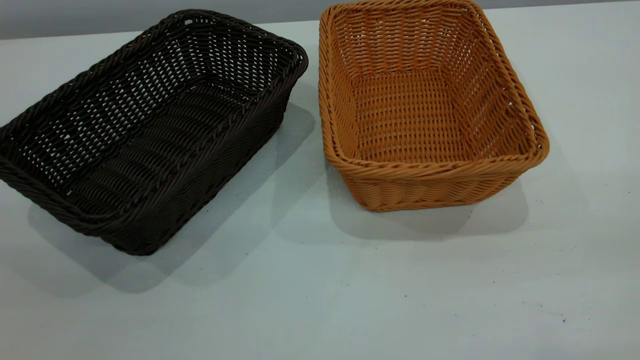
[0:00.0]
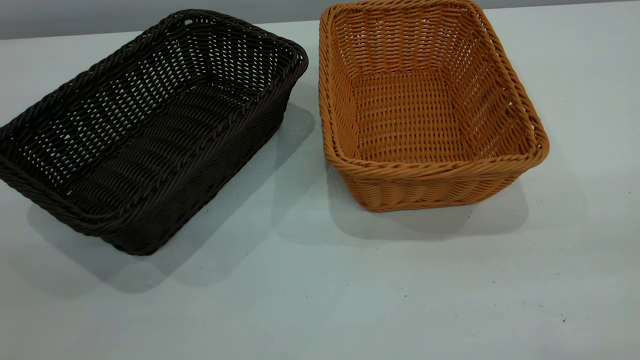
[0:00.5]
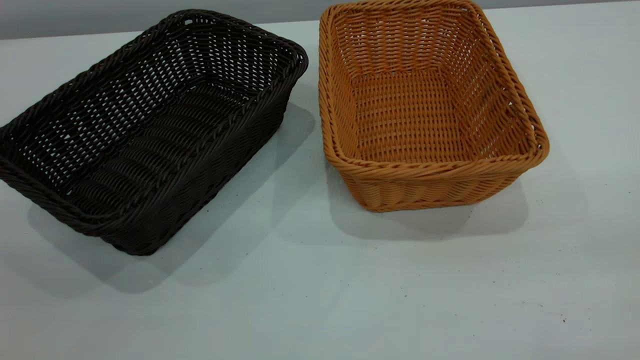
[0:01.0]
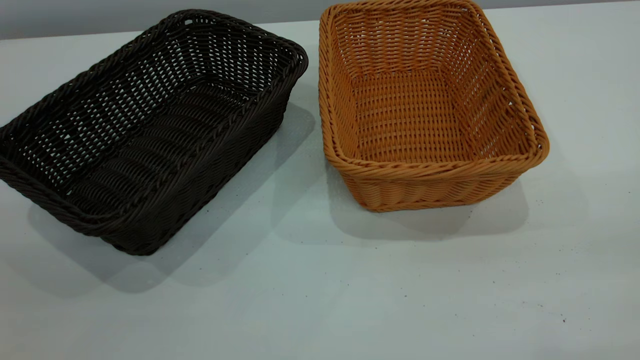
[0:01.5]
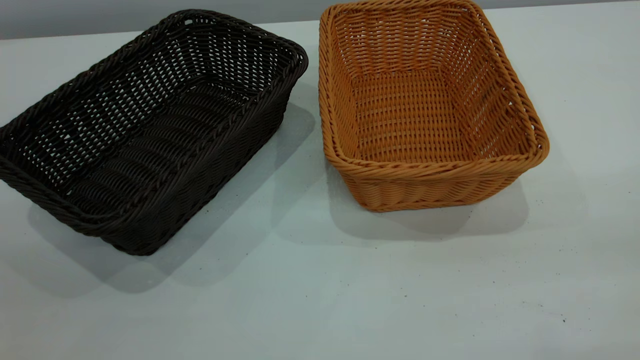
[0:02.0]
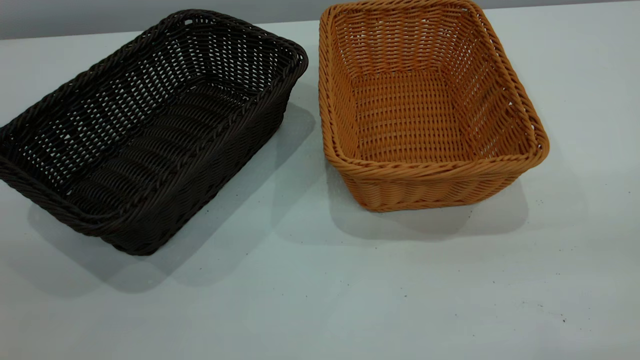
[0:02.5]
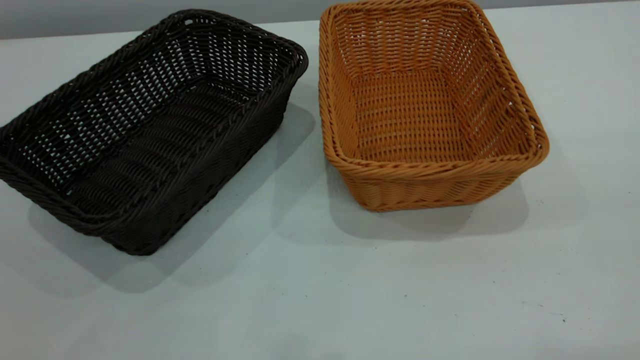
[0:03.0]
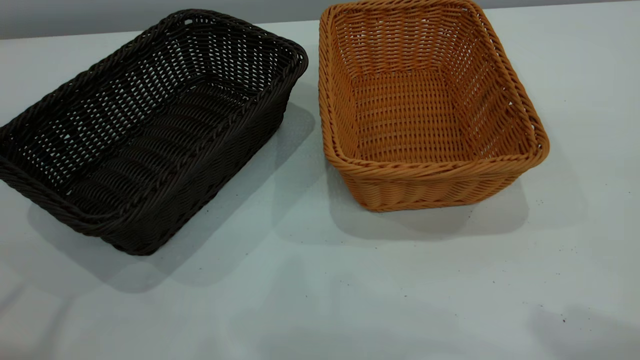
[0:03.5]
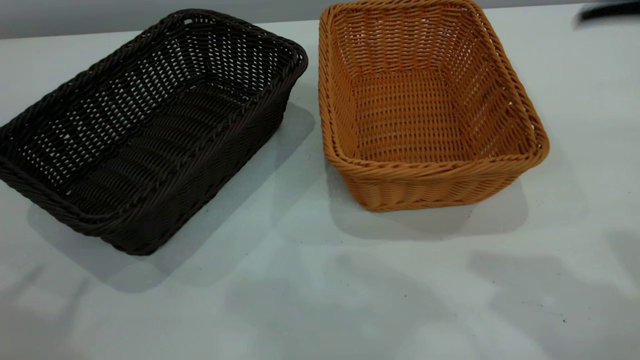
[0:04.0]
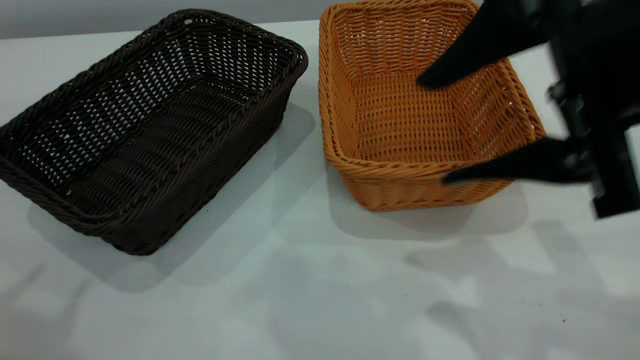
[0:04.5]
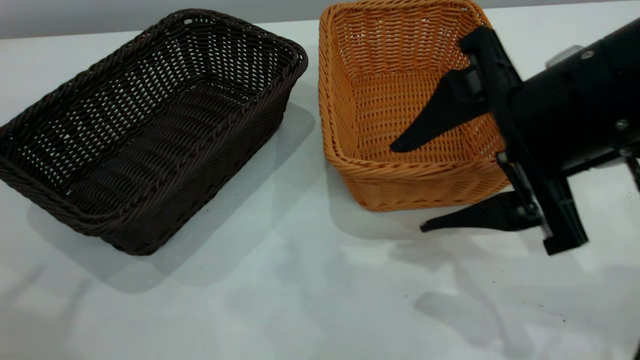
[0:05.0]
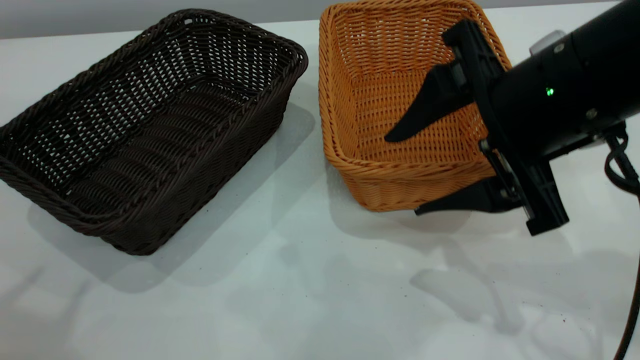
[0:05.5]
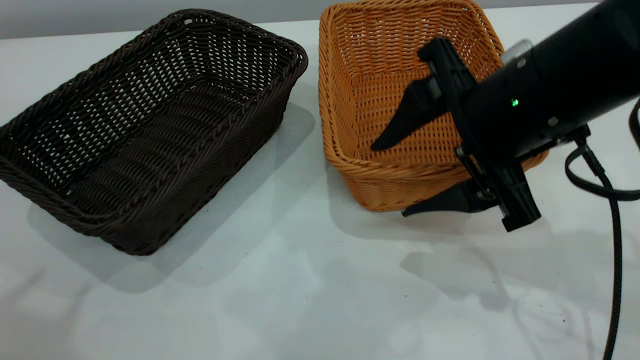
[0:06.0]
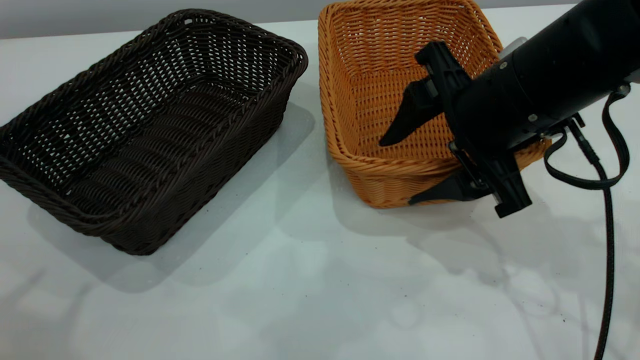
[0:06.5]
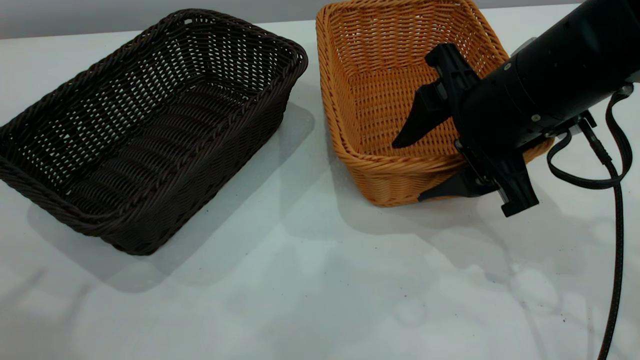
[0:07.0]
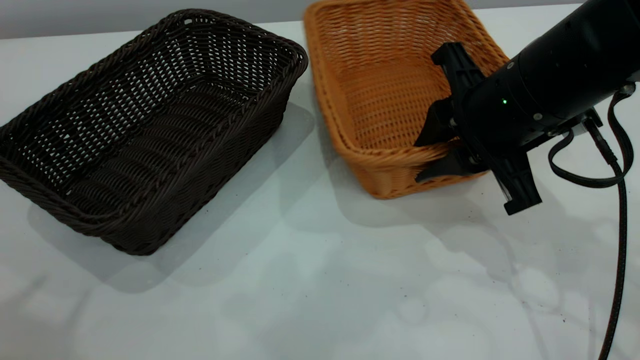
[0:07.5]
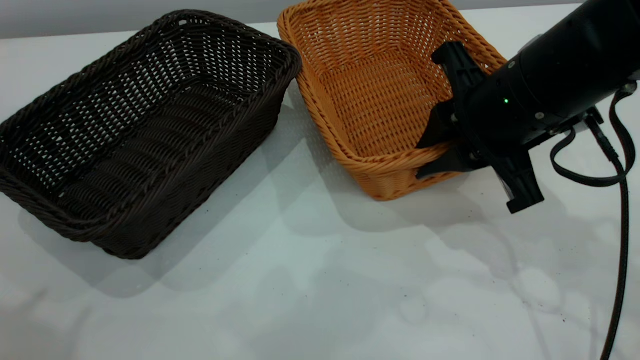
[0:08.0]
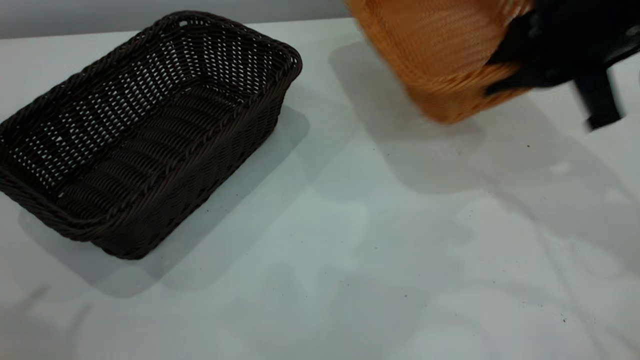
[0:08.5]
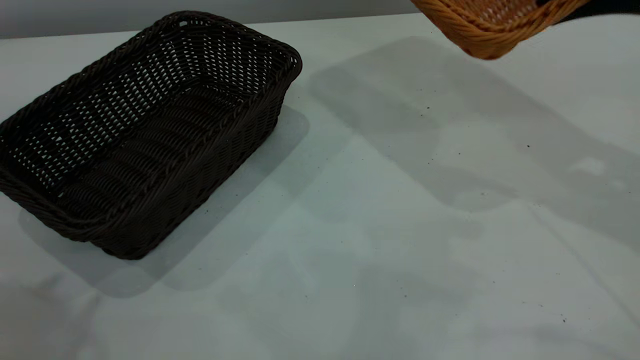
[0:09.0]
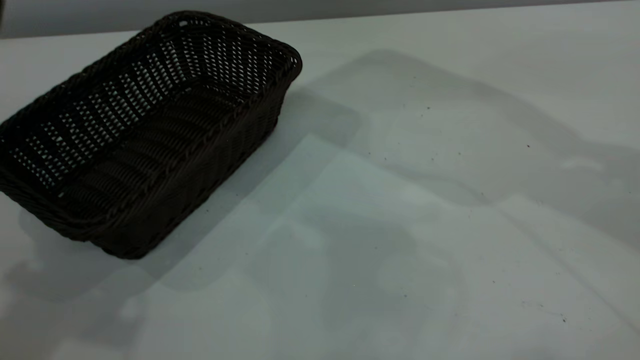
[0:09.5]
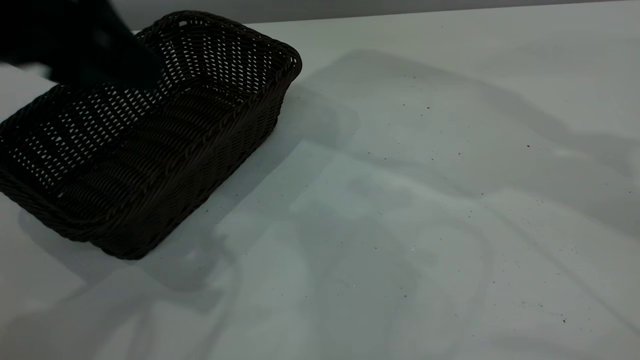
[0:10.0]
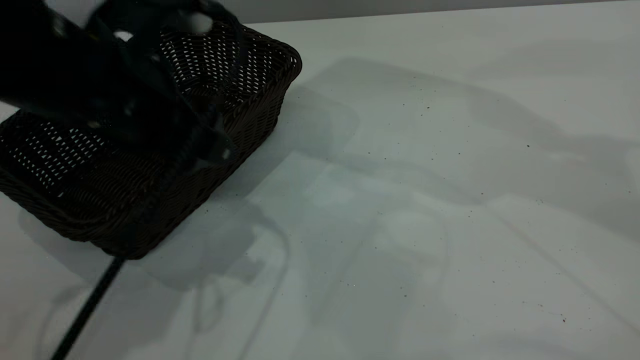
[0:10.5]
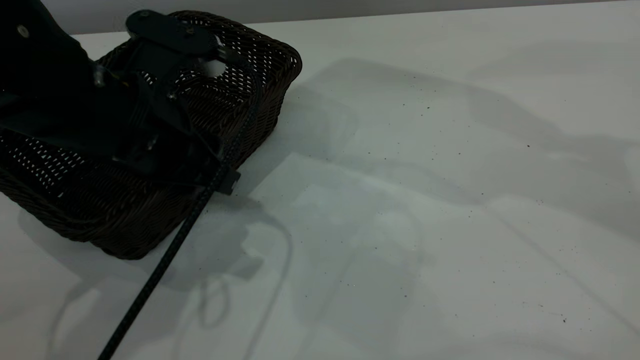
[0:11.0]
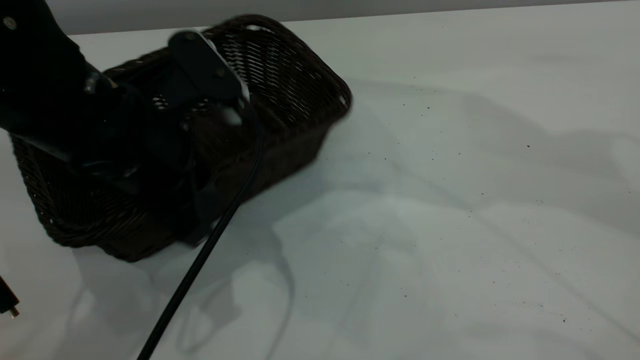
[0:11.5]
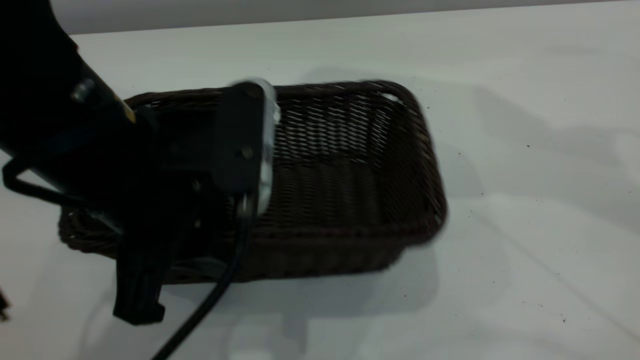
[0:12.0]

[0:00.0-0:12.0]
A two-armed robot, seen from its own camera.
Task of the whole recording: the left gripper grasp the black basket and place it in the center of the table, the right gripper grasp the brown basket and place it inside the black one.
Step, 0:00.0 to 0:08.0: Pick up the light basket with the right gripper.
0:00.0 to 0:02.0: Neither gripper changes place.
0:02.0 to 0:04.0: The right gripper is displaced forward and to the left by some 20 cm, and opens up.
0:04.0 to 0:06.0: The right gripper heads downward, forward and to the left, covering some 20 cm.
0:06.0 to 0:08.0: The right gripper closes up.
0:08.0 to 0:10.0: The right gripper is displaced upward and to the right by some 20 cm, while the left gripper moves forward, downward and to the right, some 15 cm.
0:10.0 to 0:12.0: The left gripper travels downward and to the right by approximately 10 cm, and closes.

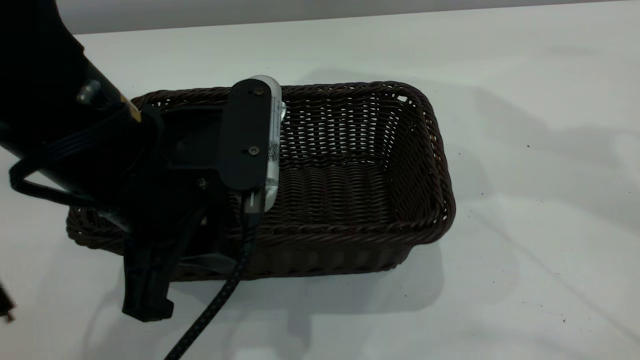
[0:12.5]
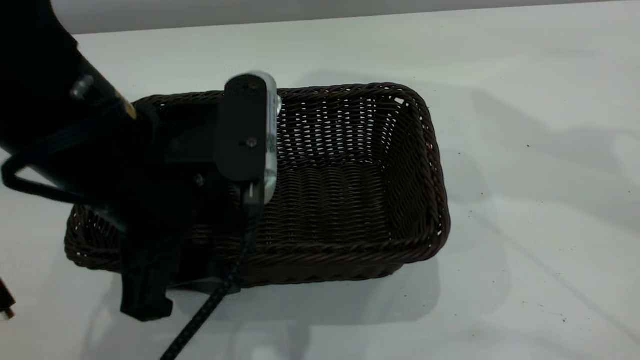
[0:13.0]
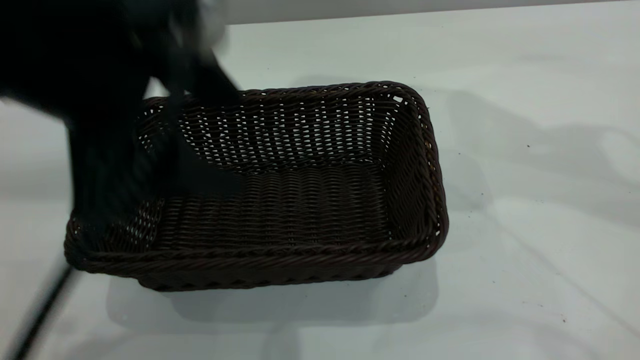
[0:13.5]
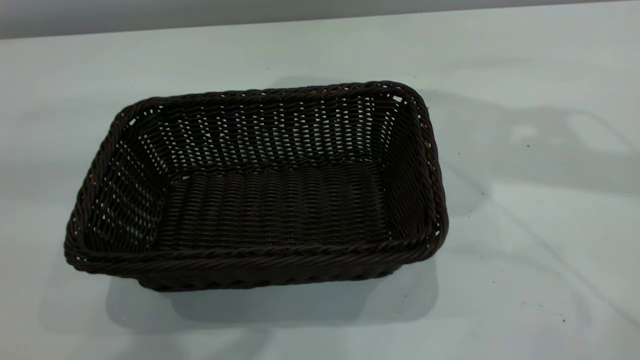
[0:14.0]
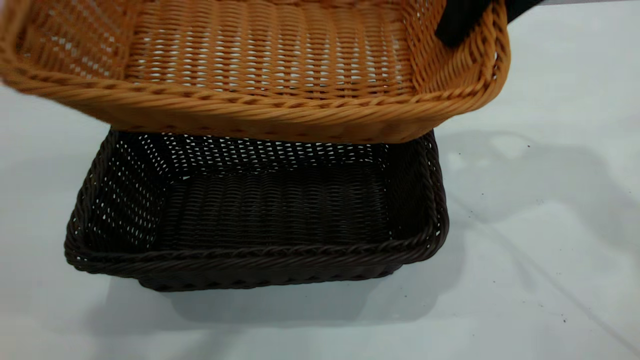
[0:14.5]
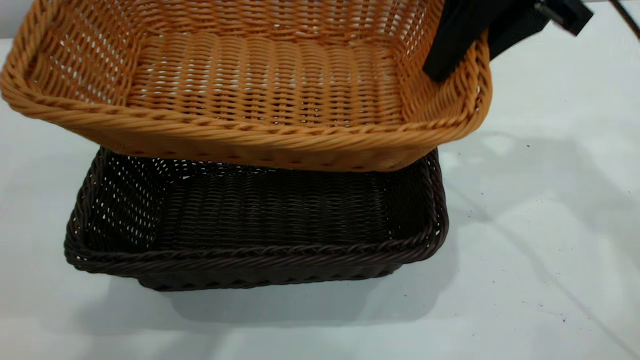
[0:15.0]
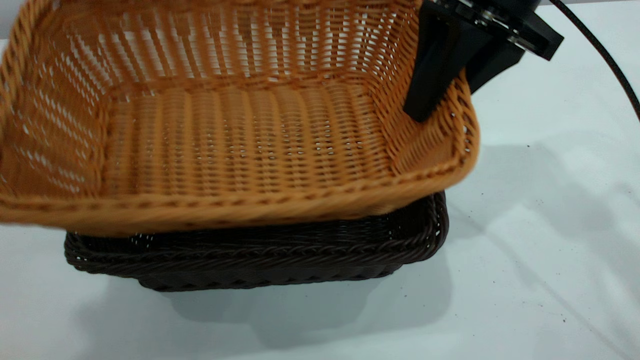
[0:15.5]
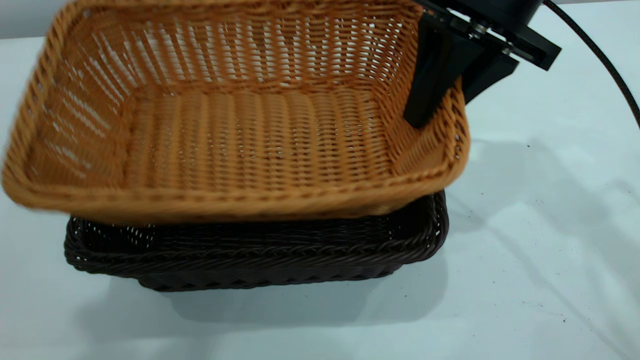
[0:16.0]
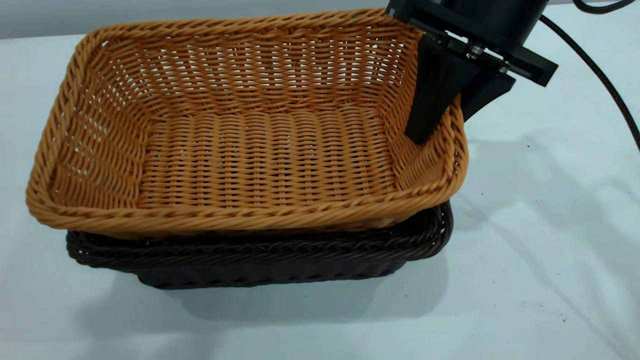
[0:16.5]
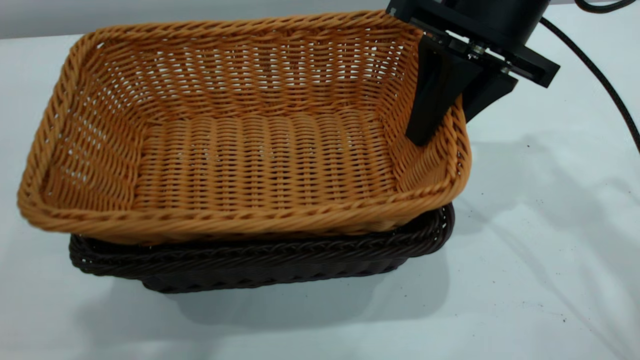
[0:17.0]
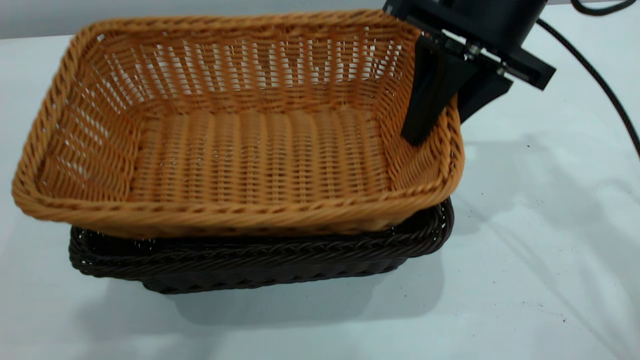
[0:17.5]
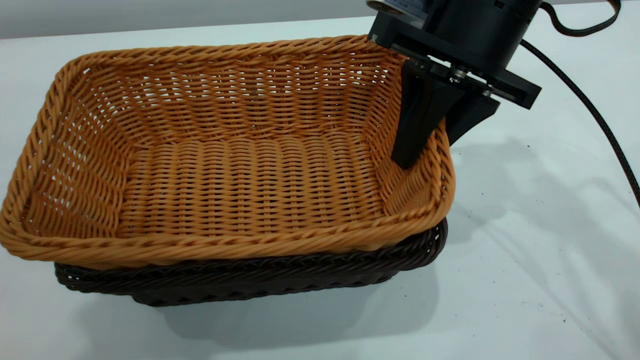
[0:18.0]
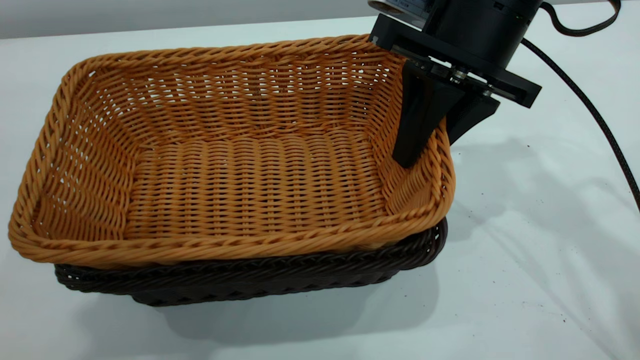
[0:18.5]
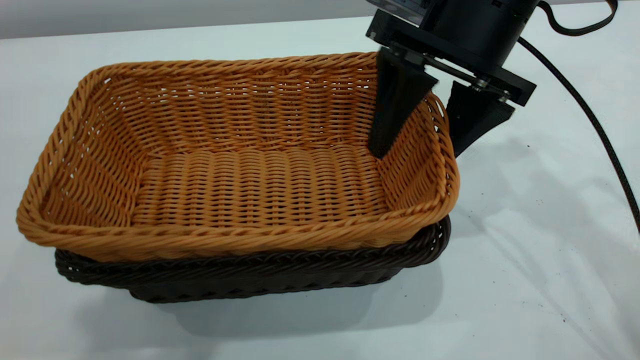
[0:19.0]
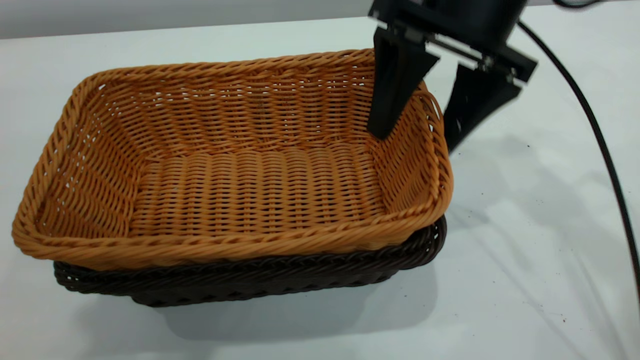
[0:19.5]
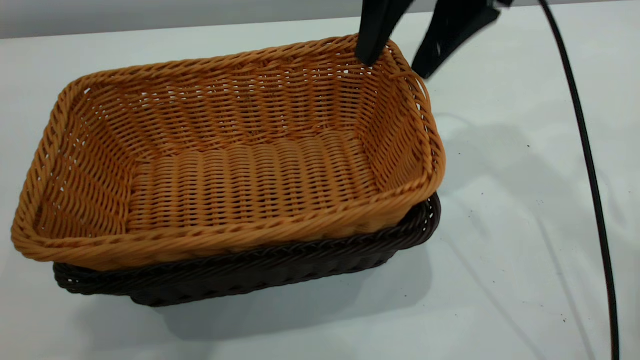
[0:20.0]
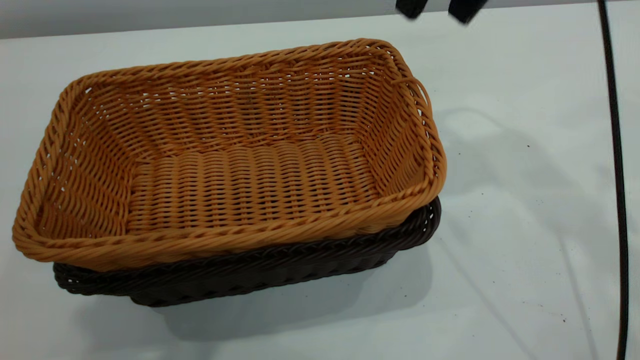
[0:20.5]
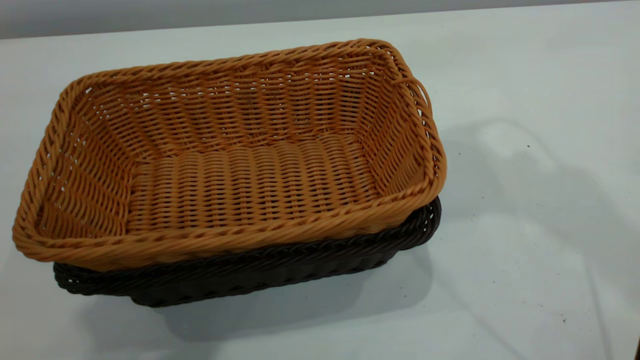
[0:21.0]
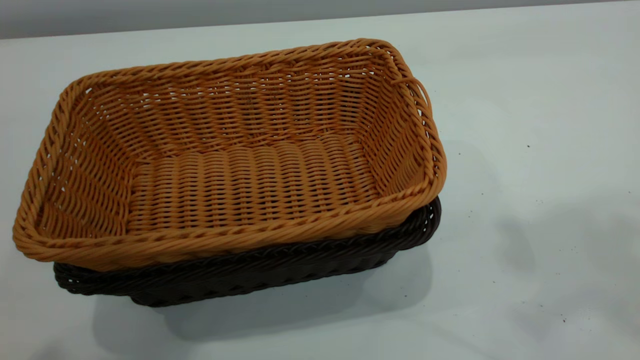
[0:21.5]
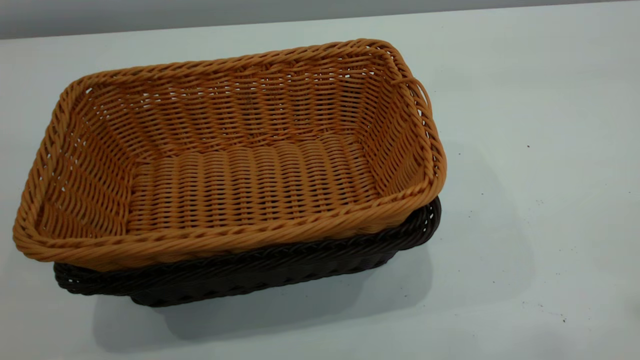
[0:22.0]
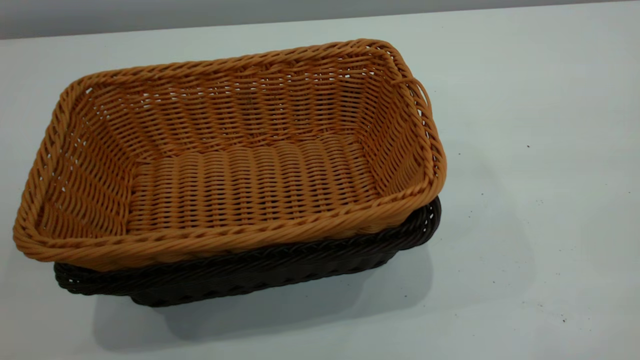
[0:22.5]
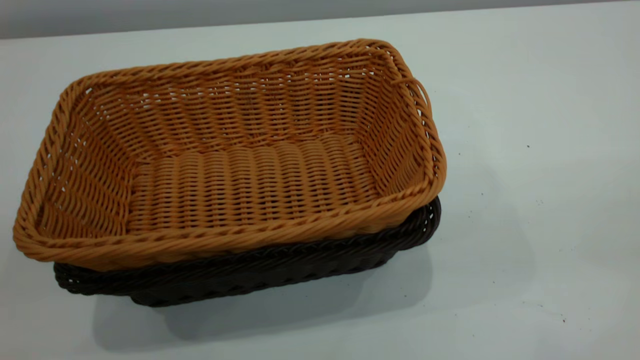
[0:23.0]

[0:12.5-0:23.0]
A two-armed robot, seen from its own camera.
Task of the whole recording: the left gripper grasp the black basket and place it in the center of the table, the right gripper grasp the brown basket and place it inside the black one.
Step, 0:14.0 to 0:20.0: Place the light basket on the dark basket.
0:12.5 to 0:14.5: The right gripper heads downward and to the left, covering roughly 15 cm, while the left gripper is displaced upward by about 25 cm, and opens.
0:14.5 to 0:16.5: The right gripper shifts approximately 5 cm downward.
0:16.5 to 0:19.0: The right gripper opens its fingers.
0:19.0 to 0:21.0: The right gripper shifts some 20 cm upward, and closes.
